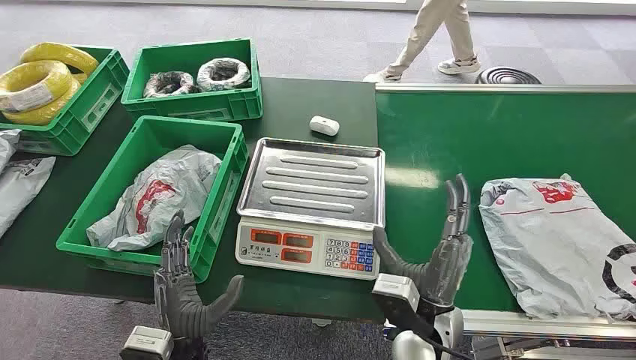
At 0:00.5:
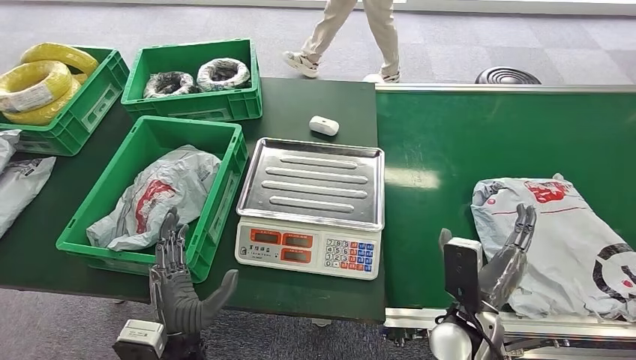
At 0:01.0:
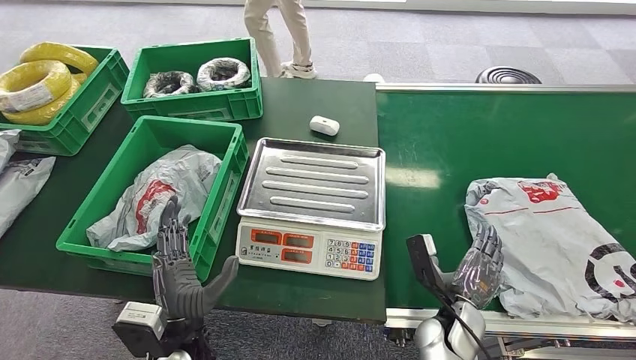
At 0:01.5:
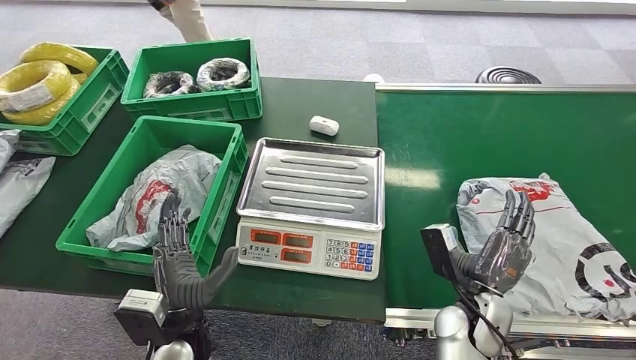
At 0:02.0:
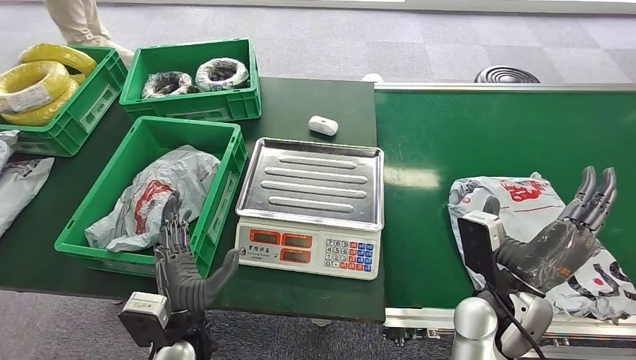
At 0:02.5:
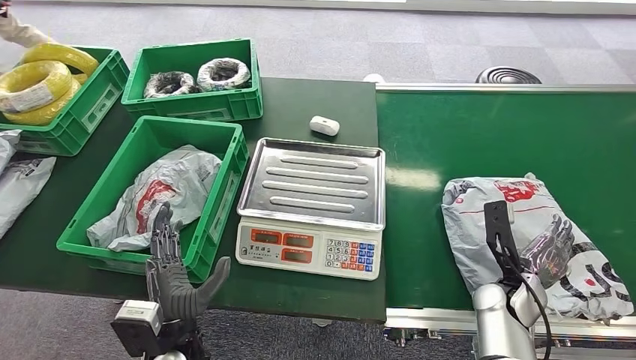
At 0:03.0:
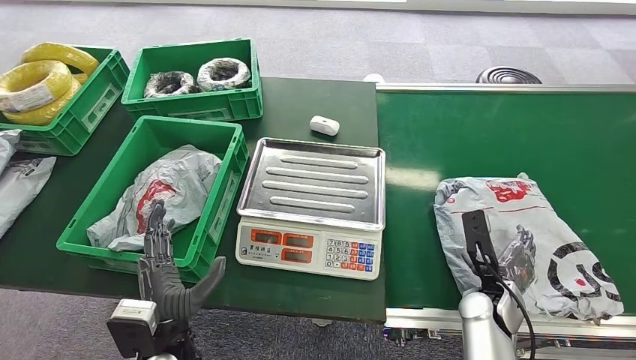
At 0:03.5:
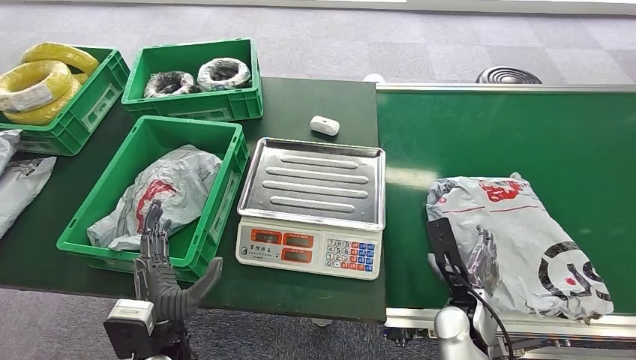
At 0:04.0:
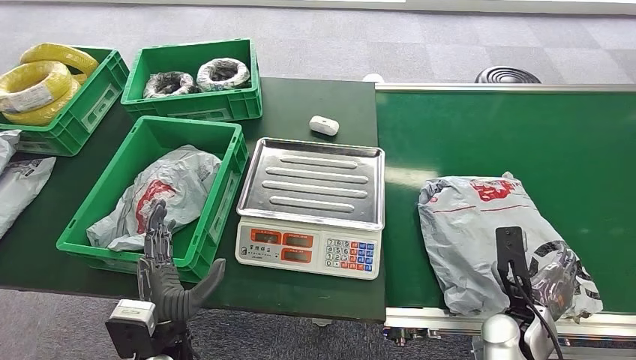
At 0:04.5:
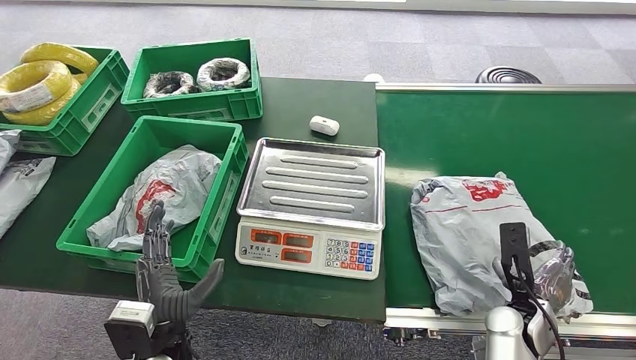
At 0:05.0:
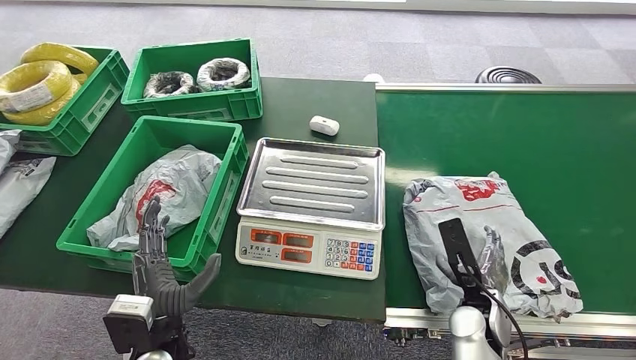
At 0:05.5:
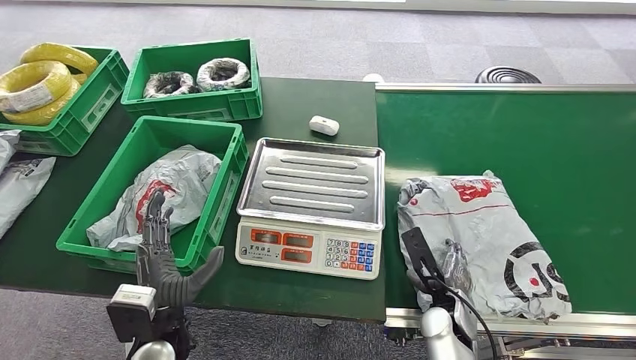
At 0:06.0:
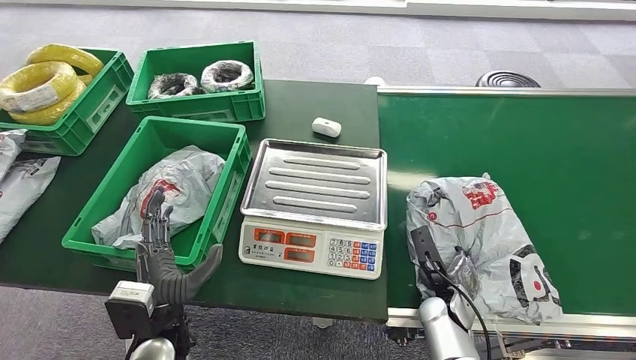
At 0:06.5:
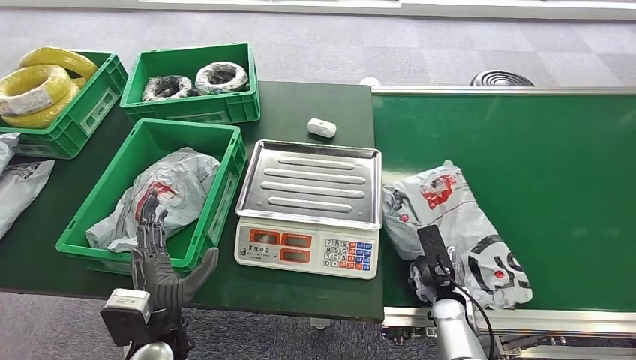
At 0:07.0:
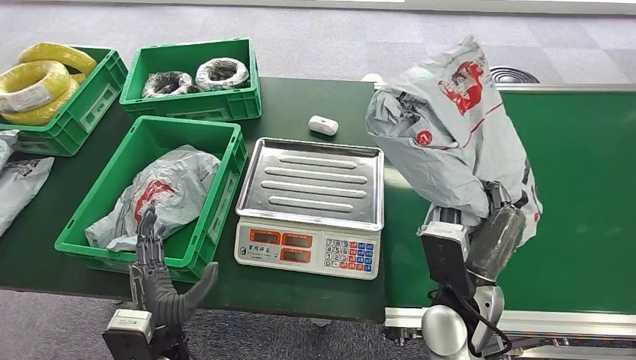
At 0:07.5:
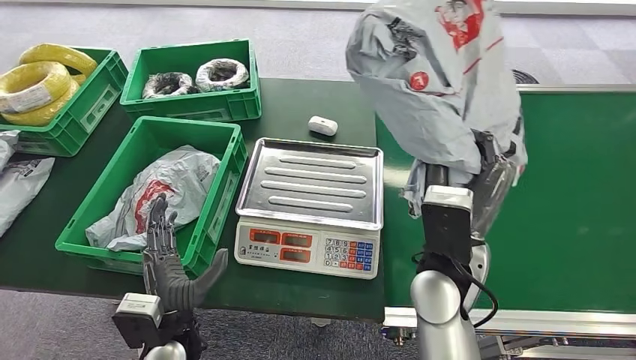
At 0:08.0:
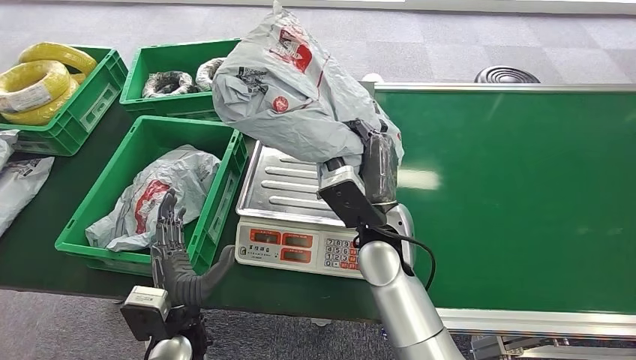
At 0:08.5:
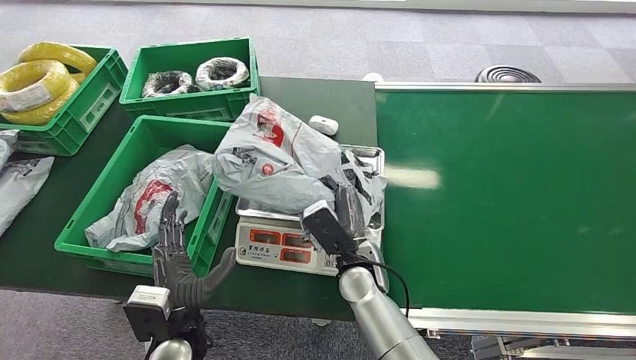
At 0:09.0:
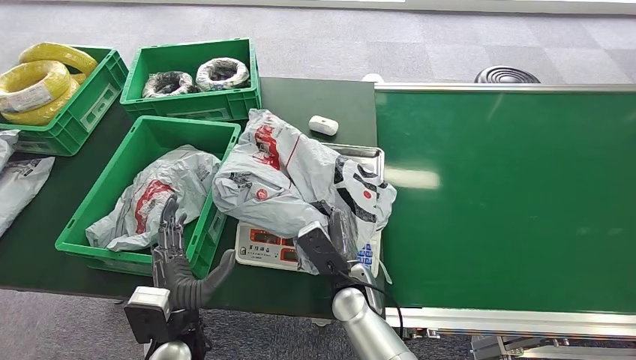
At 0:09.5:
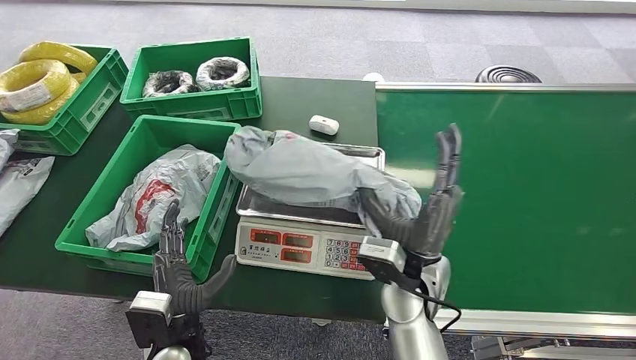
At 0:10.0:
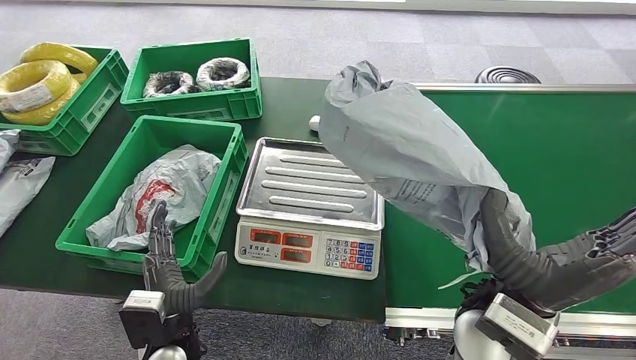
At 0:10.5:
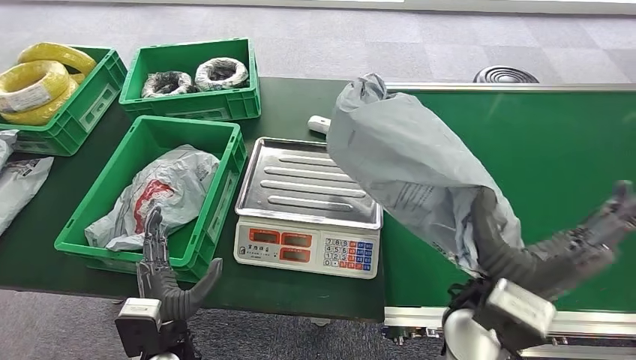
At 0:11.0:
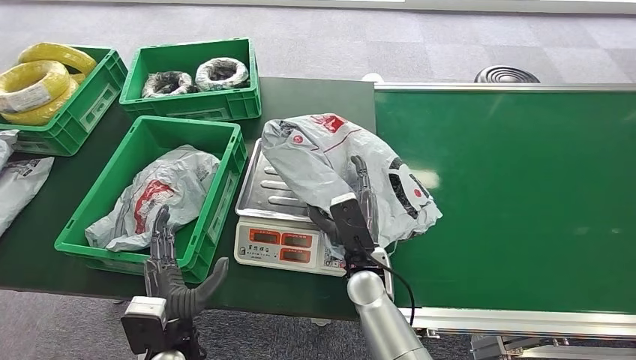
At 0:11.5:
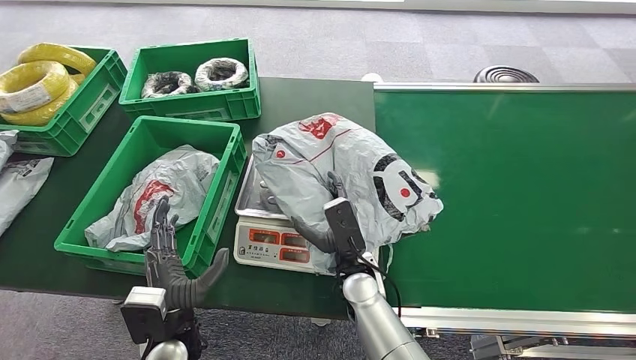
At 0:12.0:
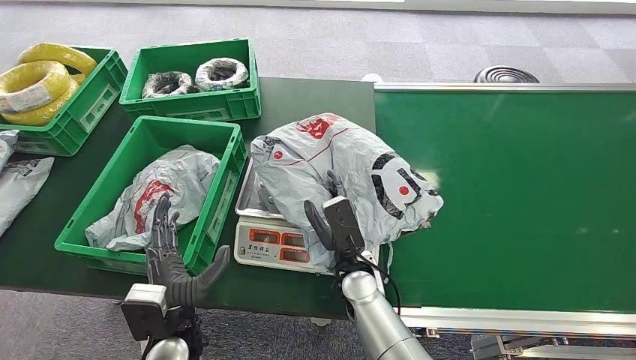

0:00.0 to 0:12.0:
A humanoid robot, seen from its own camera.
Step, 0:00.0 to 0:07.0: Pick up the package from the conveyor belt.
0:02.0 to 0:04.0: The right hand goes some 15 cm downward and to the right.

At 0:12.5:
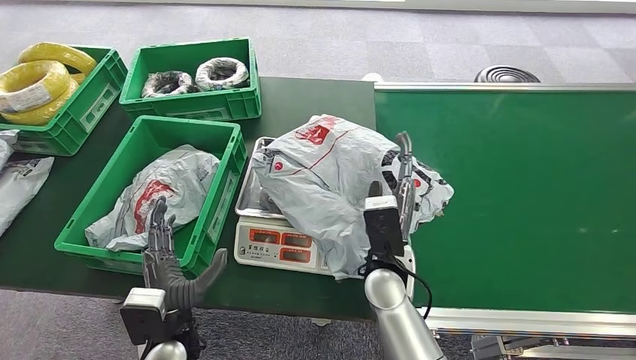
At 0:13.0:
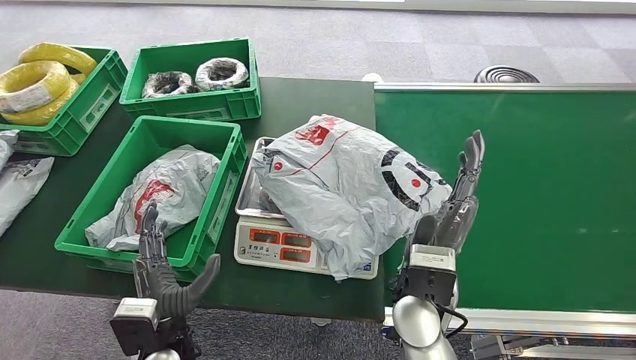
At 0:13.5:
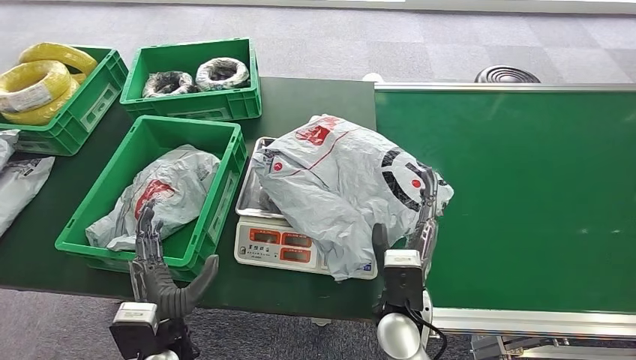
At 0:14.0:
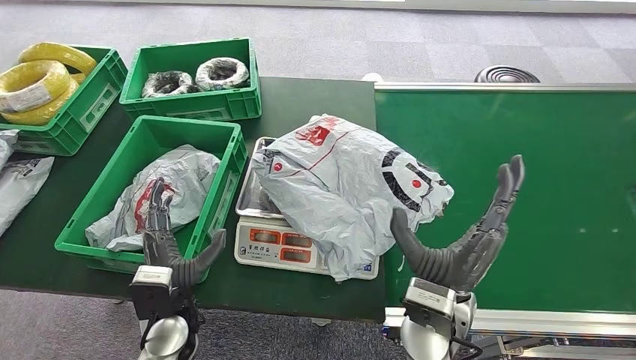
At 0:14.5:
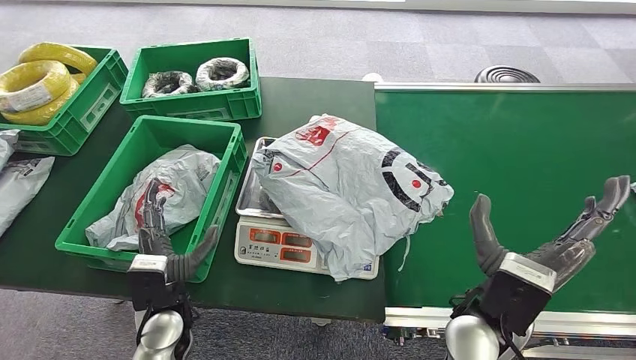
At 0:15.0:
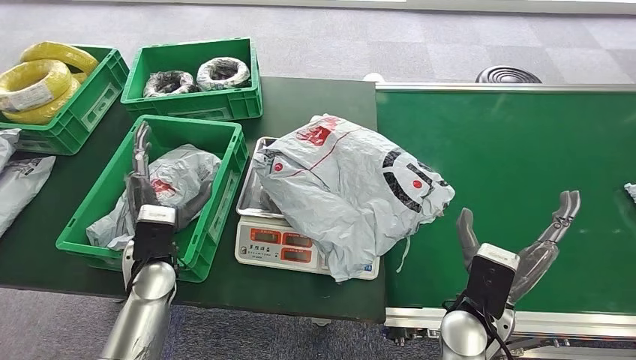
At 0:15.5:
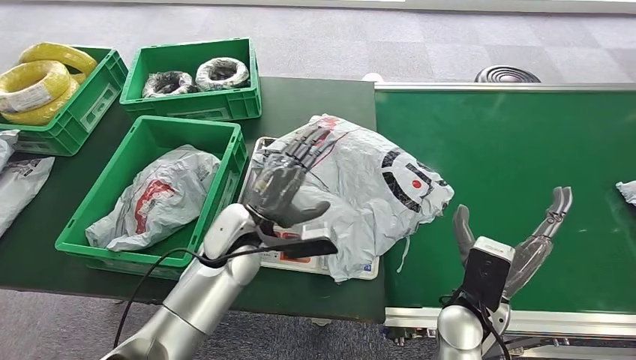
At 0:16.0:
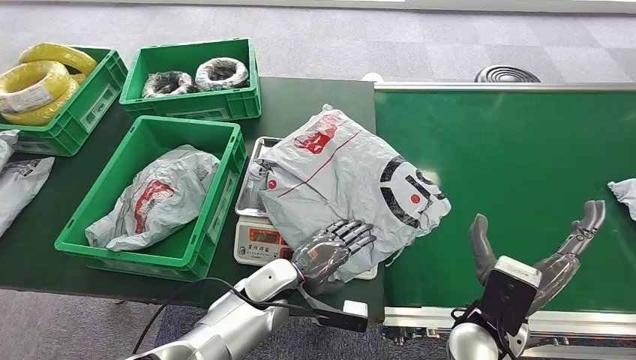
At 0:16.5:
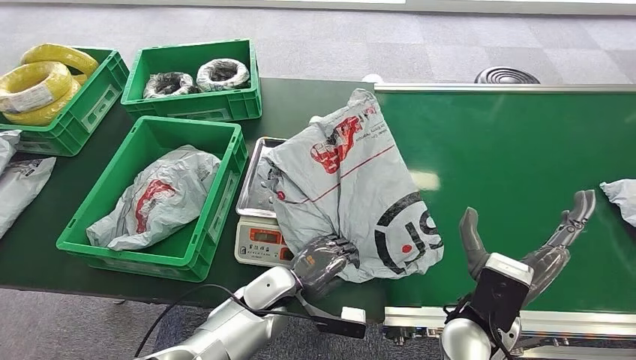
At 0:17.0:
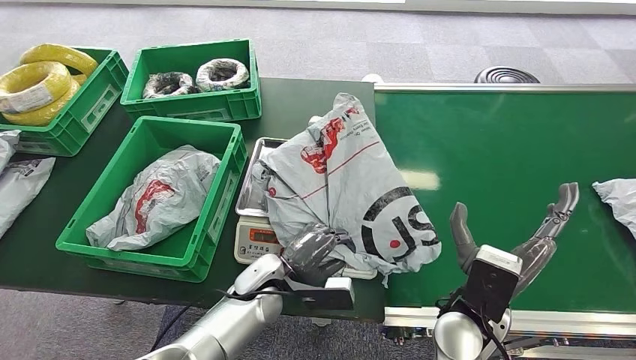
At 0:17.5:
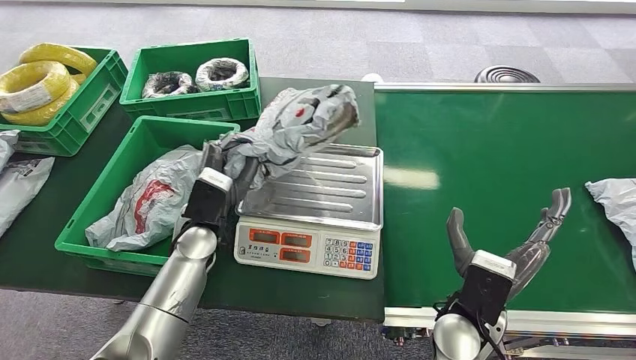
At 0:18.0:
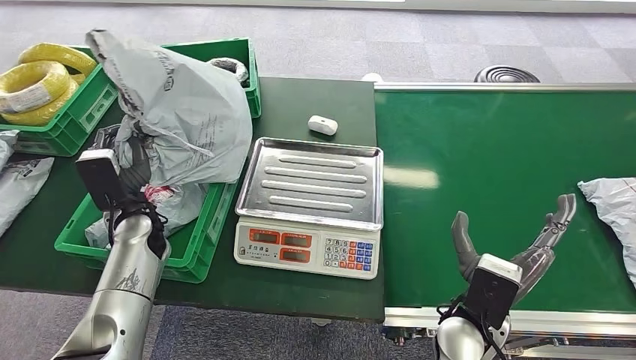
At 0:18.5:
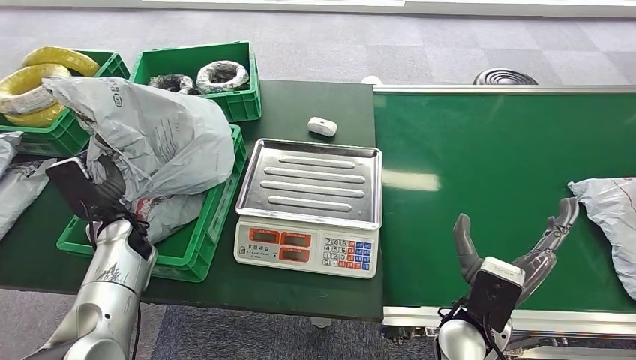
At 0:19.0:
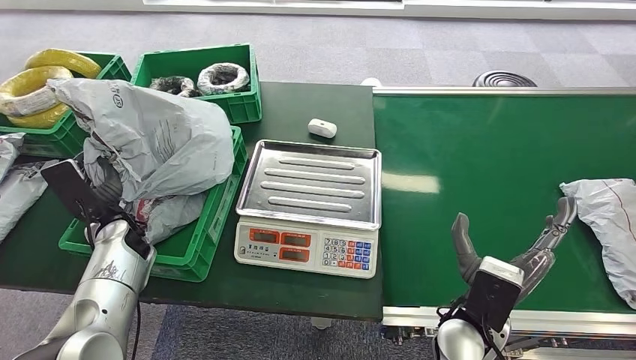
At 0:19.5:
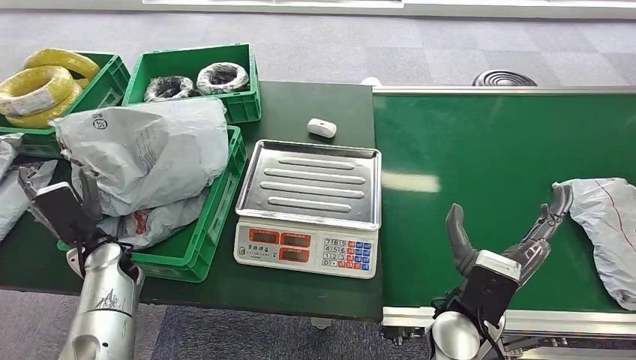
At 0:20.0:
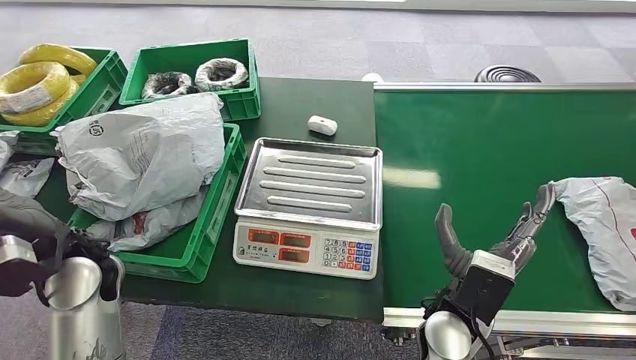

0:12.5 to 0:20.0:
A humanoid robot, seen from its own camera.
Step, 0:13.0 to 0:17.5: Pick up the package from the inbound machine.
Step, 0:18.5 to 0:19.5: Place the package into the parcel locker.
0:12.5 to 0:14.5: The right hand travels to the right, backward and upward by some 15 cm, while the left hand moves some 5 cm.
